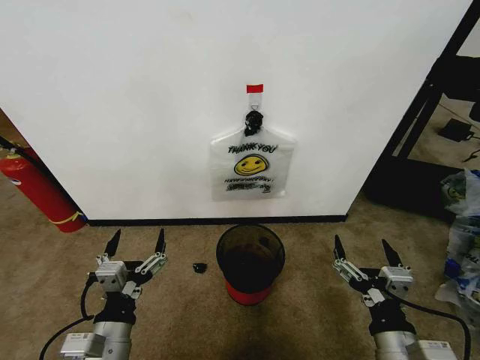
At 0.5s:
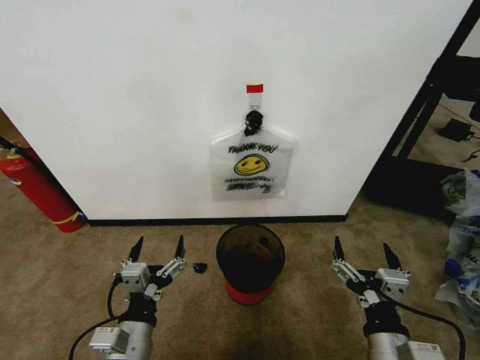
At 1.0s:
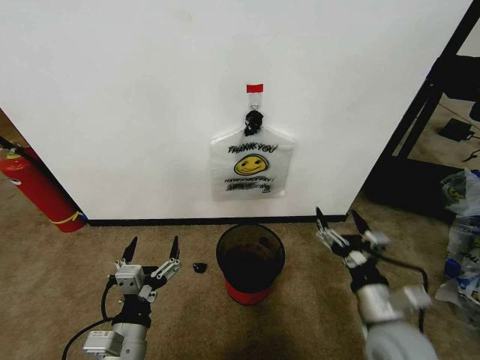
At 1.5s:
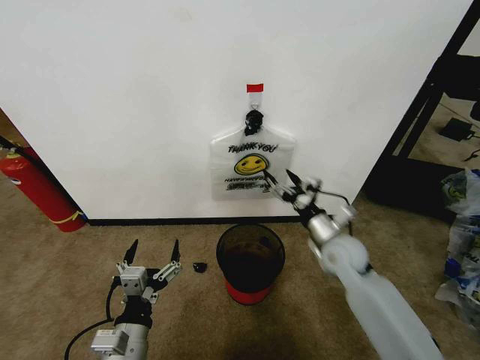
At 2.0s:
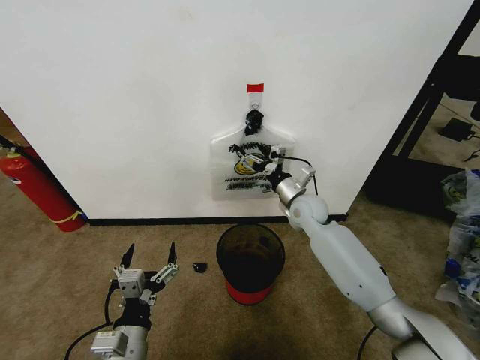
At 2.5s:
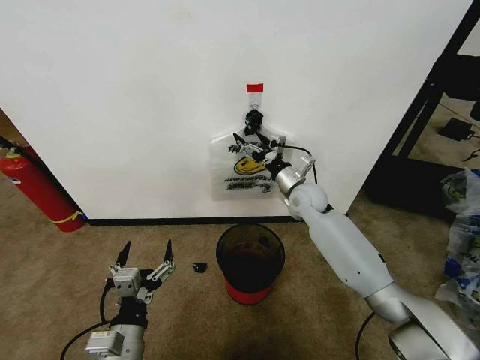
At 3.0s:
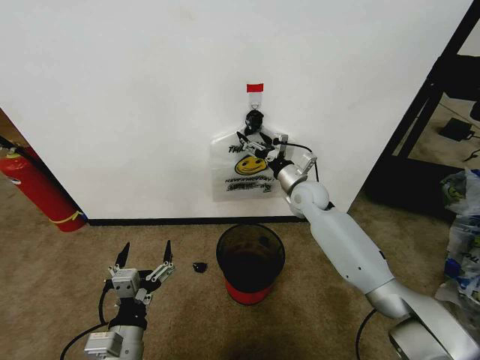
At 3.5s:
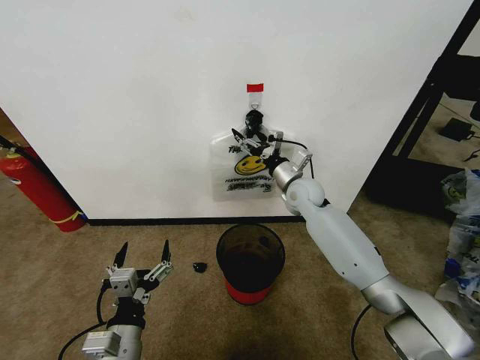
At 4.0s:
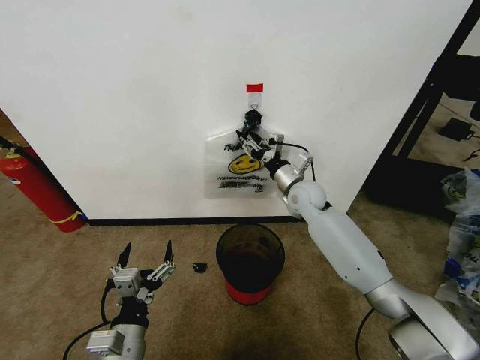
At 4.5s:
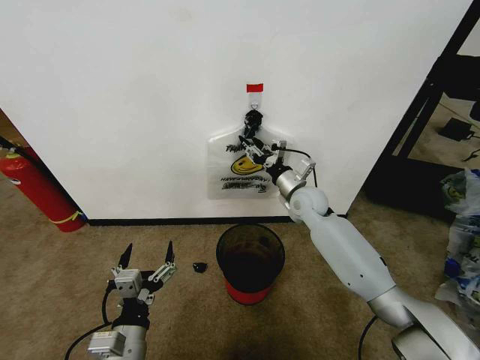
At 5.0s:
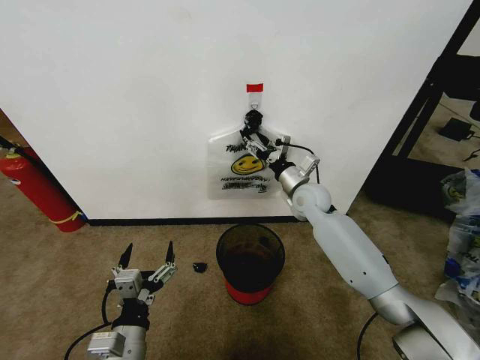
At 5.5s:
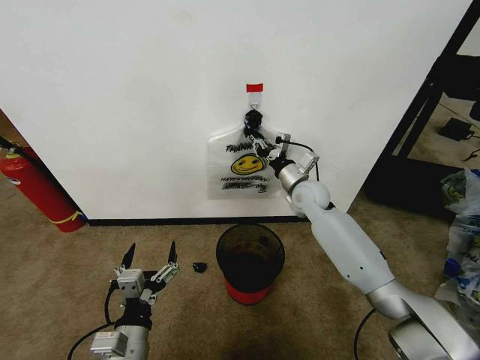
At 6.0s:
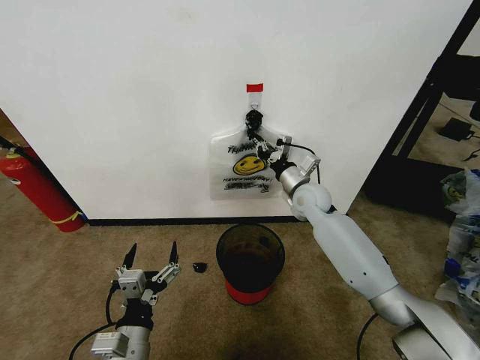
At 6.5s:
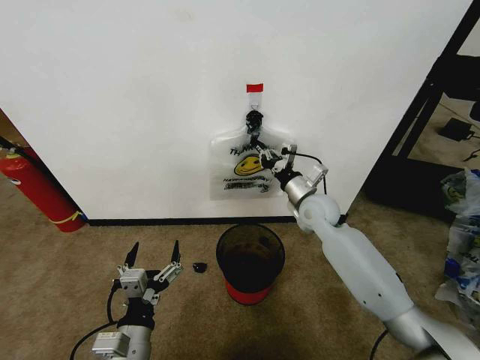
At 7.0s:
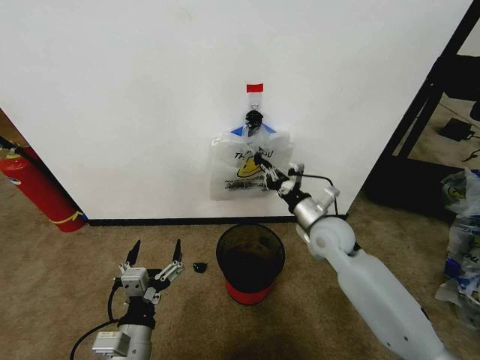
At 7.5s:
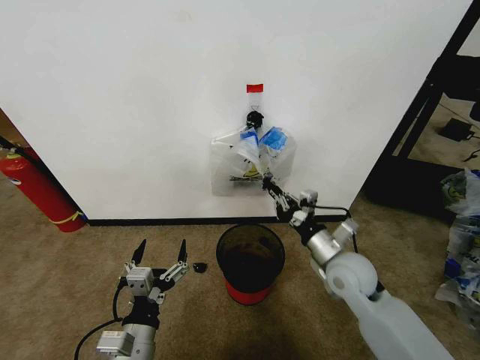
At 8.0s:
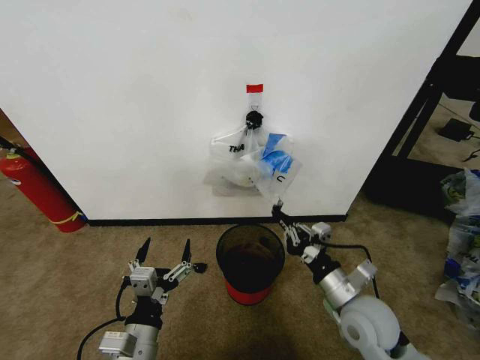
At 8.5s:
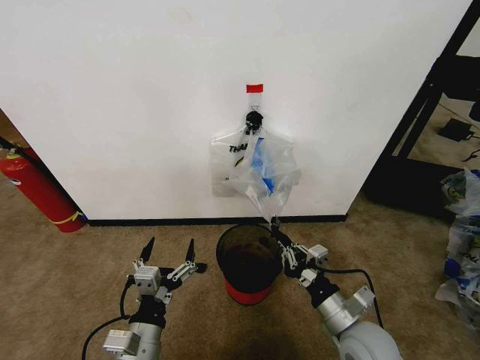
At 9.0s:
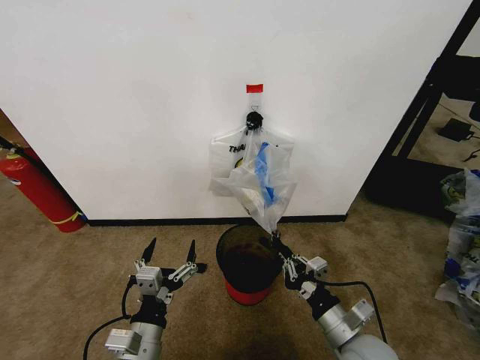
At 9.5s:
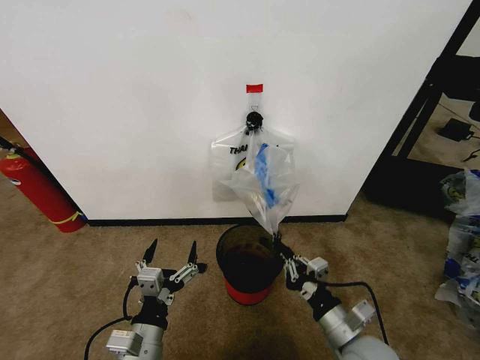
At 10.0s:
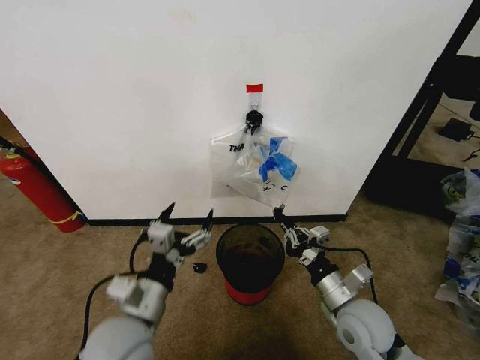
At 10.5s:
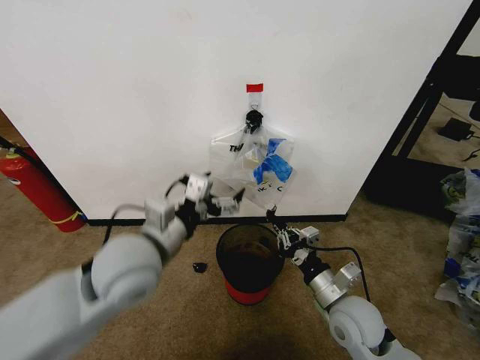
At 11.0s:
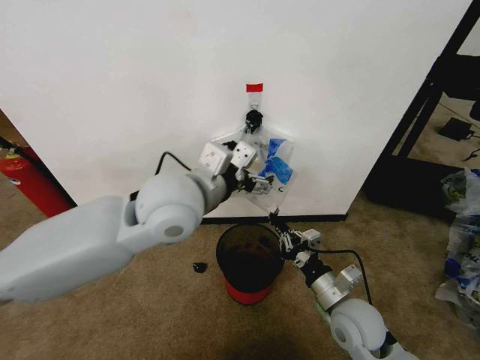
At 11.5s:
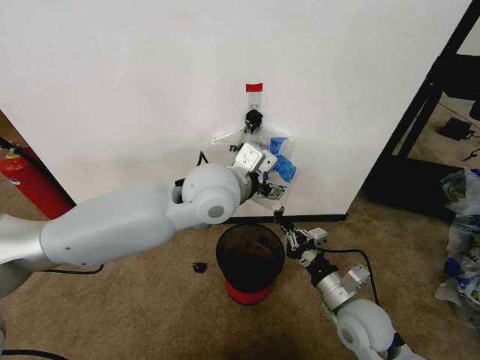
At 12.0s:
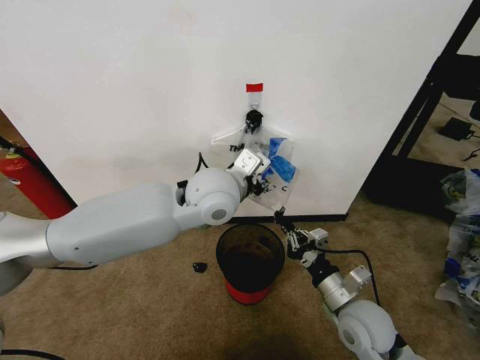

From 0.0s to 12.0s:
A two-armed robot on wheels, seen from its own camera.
Task of the whole recording: Pick up the garbage bag from the wall and place it over the trash bin.
From 2.0s to 4.0s: The right gripper closes its fingers.
From 4.0s to 6.0s: The right gripper closes.
From 6.0s to 8.0s: The right gripper heads backward, covering about 25 cm.
From 8.0s to 10.0s: The left gripper moves upward and forward, roughly 10 cm.
From 10.0s to 12.0s: The left gripper moves forward, upward and to the right, roughly 30 cm, and closes up.

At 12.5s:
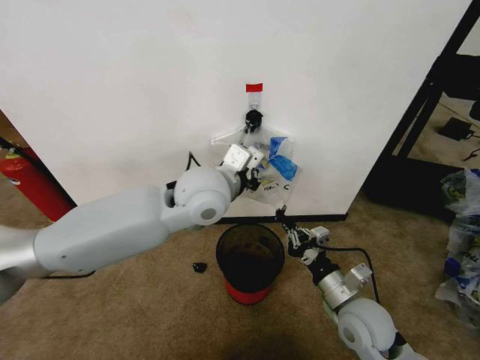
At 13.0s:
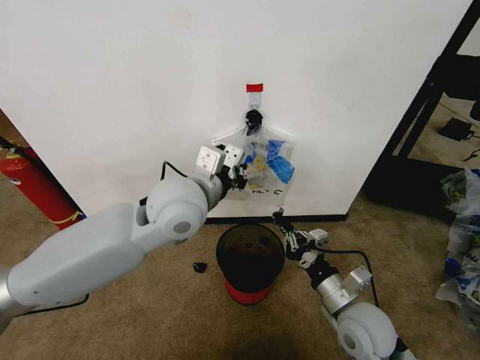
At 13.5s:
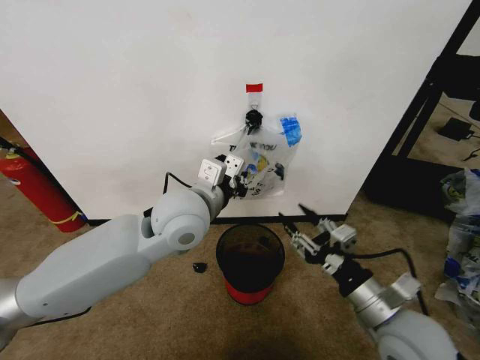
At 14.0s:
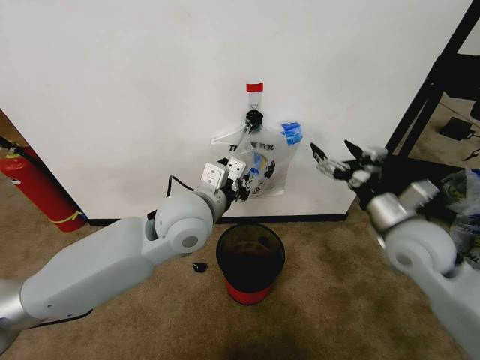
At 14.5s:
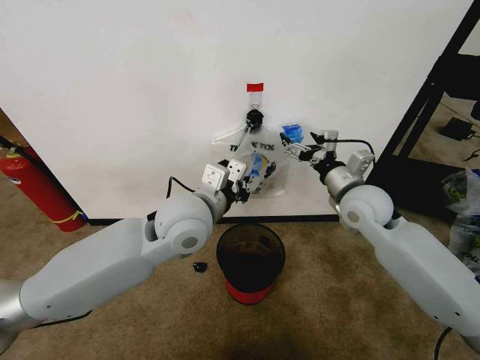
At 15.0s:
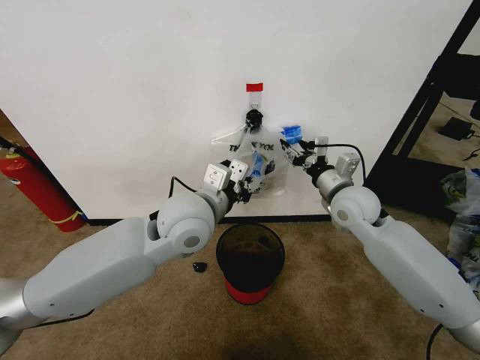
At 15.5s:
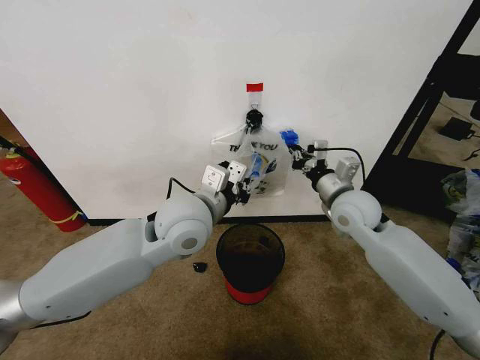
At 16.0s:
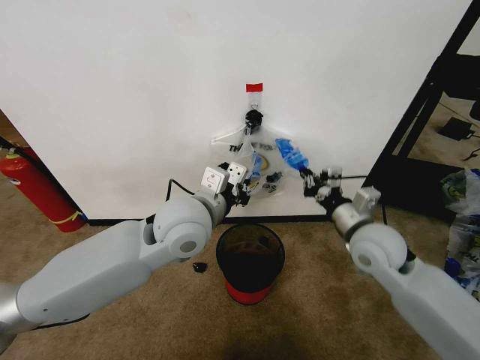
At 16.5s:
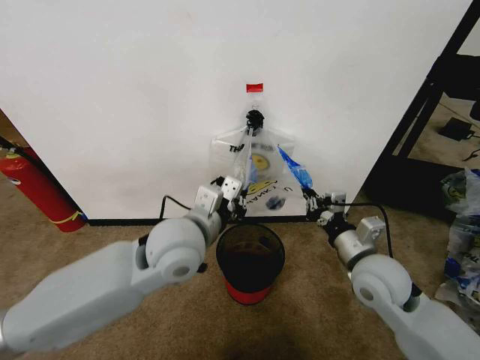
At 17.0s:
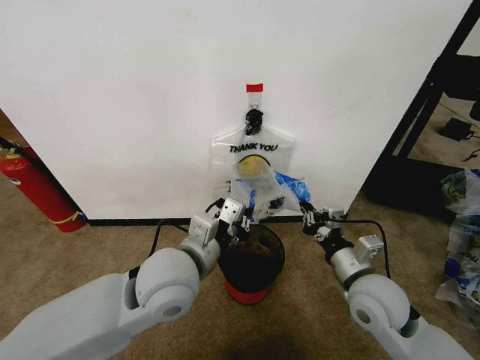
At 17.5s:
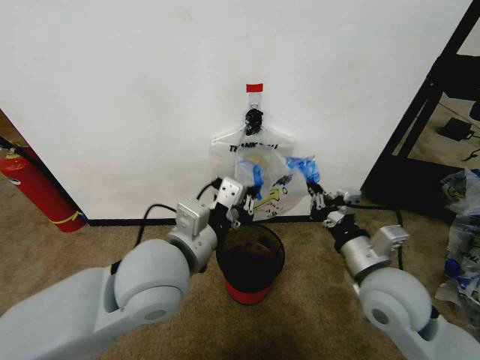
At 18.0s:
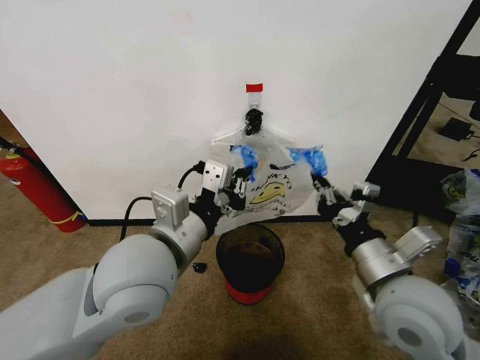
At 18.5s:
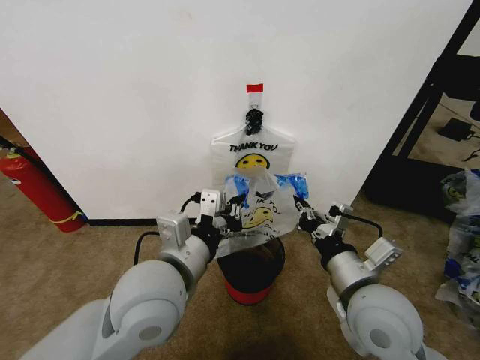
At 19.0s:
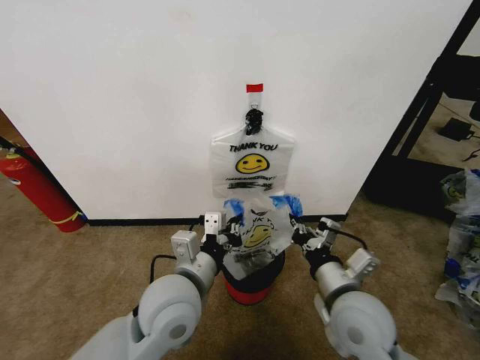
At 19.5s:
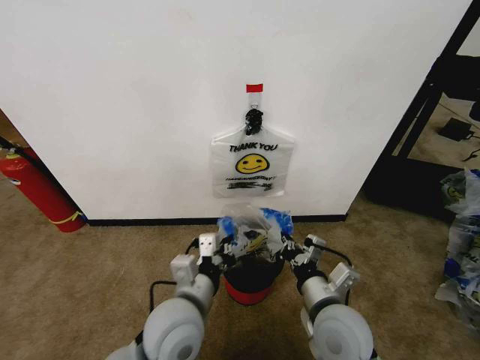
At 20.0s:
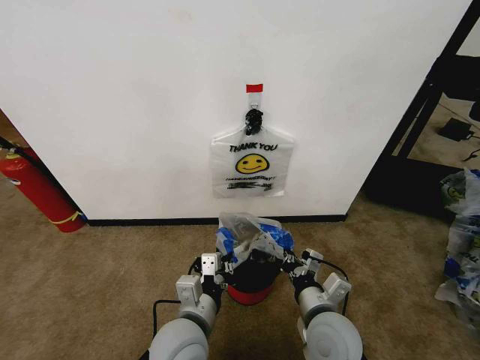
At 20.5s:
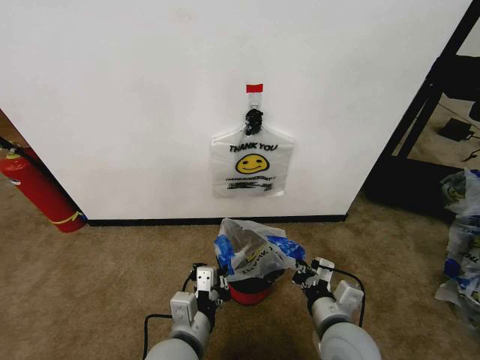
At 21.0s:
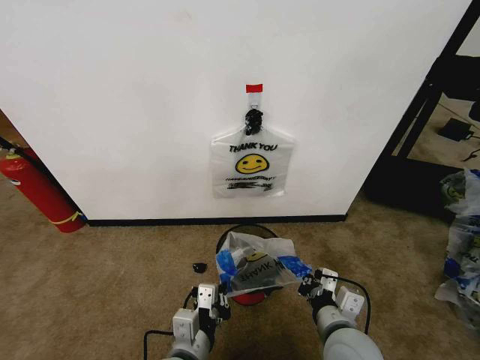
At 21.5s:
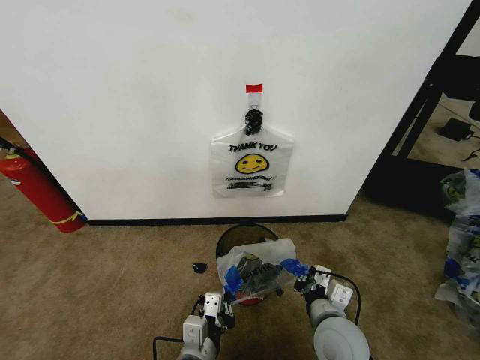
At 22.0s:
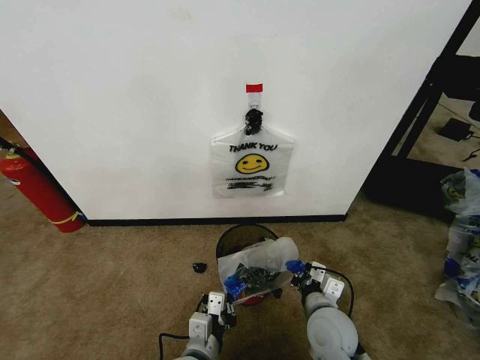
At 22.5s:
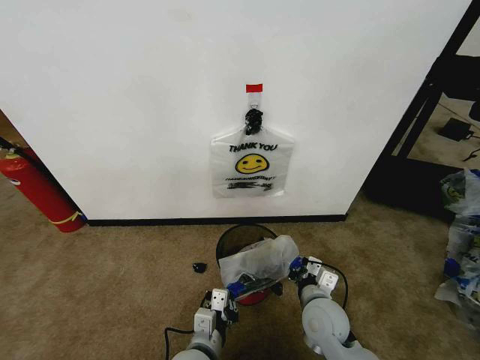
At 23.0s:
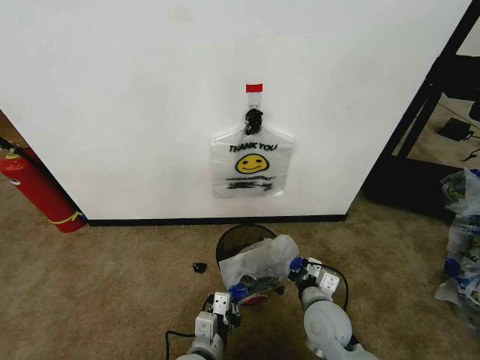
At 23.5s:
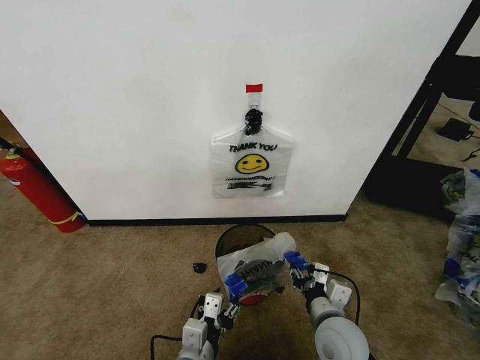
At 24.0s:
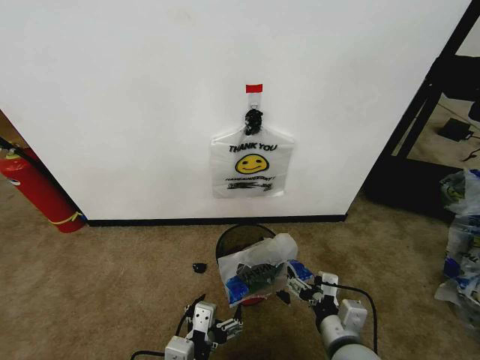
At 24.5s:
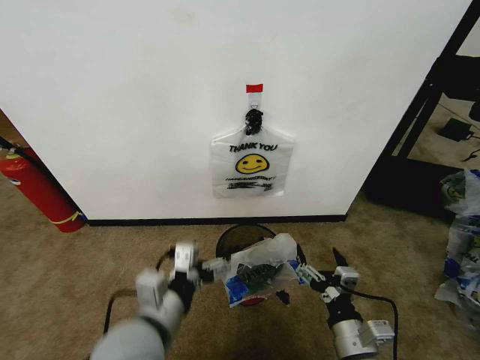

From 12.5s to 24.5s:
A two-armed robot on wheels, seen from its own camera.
Task of the whole recording: Pick up the garbage bag from the wall and place it over the trash bin.
From 12.5s to 14.5s: The right gripper goes approximately 25 cm forward and upward, and opens up. Meanwhile the left gripper moves roughly 5 cm.
From 14.5s to 16.5s: The right gripper shifts roughly 15 cm backward and downward, and closes.
From 16.5s to 18.5s: The left gripper moves backward, some 10 cm. The right gripper goes approximately 10 cm backward and to the left.
From 18.5s to 20.5s: The left gripper goes about 15 cm downward and backward; the right gripper moves downward, about 10 cm.
From 20.5s to 22.5s: The right gripper moves downward and forward, some 10 cm. The left gripper goes roughly 10 cm downward.
From 22.5s to 24.5s: The right gripper moves backward, approximately 10 cm, and opens up; the left gripper is displaced upward and to the left by approximately 15 cm, and opens.

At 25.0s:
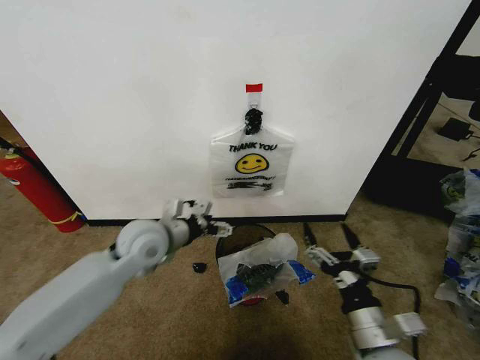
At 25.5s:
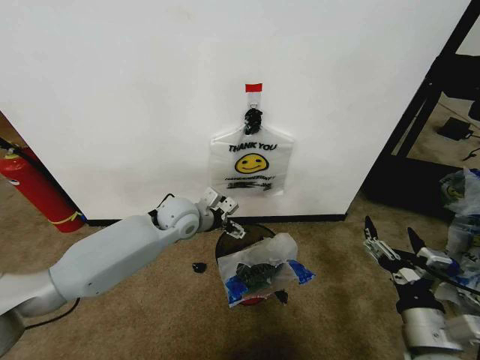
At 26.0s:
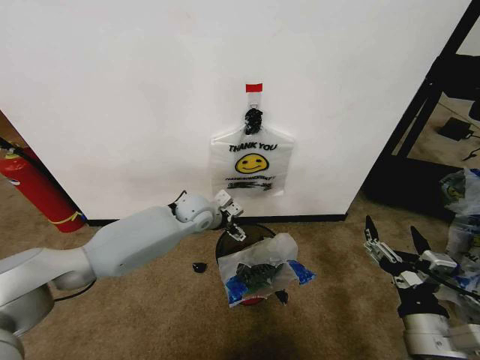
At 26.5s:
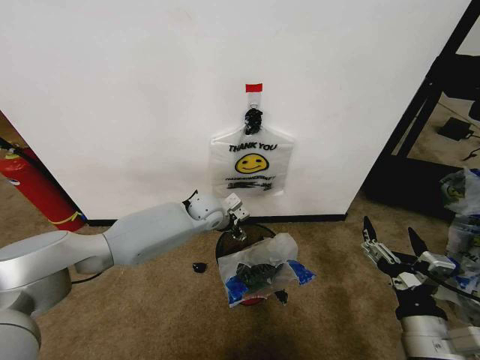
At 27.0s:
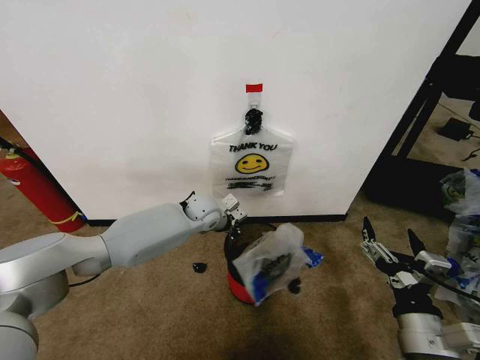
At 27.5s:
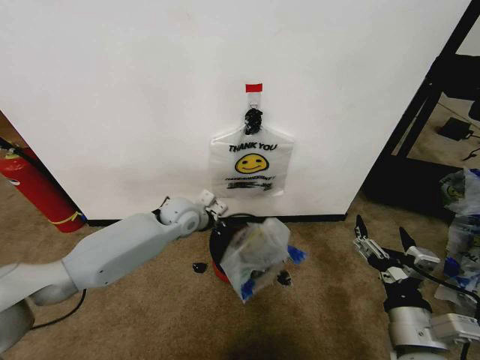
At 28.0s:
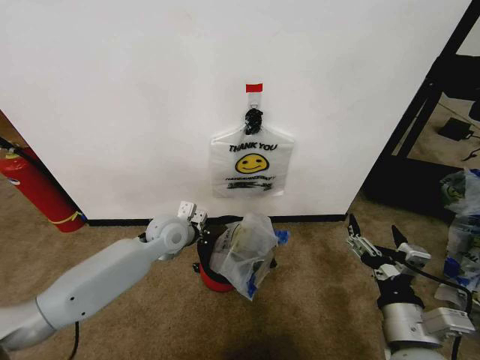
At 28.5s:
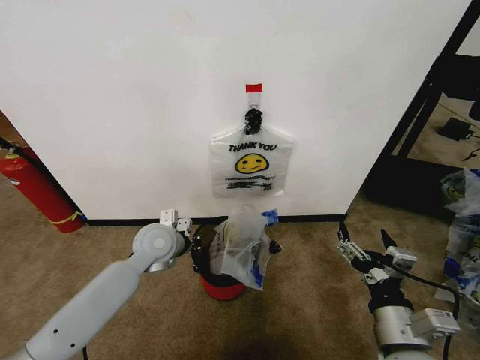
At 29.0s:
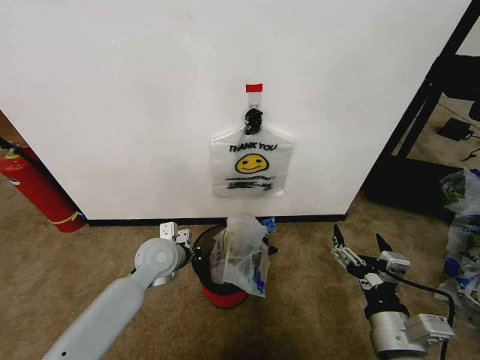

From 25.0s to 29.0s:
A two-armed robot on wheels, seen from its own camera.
Task of the whole recording: Pick up the garbage bag from the wall and place it over the trash bin.
From 25.0s to 27.0s: The right gripper changes place by some 5 cm. The left gripper moves forward, to the right and downward, roughly 20 cm, and closes.
From 27.0s to 29.0s: The left gripper moves backward and to the left, roughly 15 cm.
